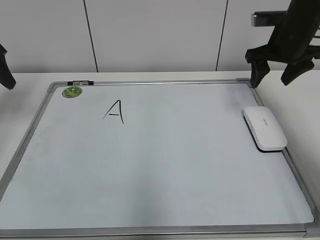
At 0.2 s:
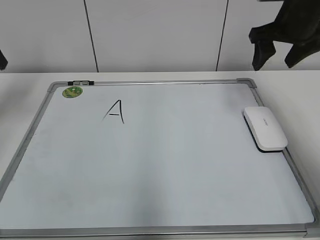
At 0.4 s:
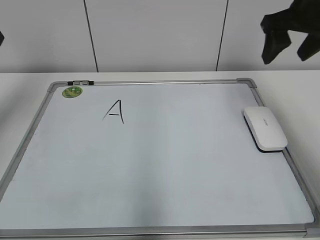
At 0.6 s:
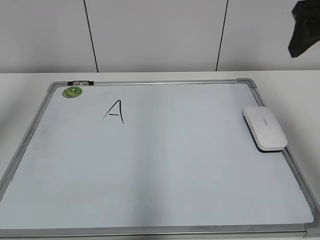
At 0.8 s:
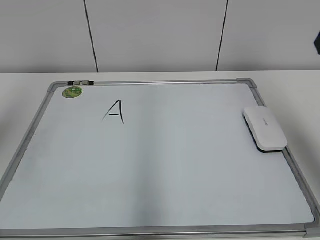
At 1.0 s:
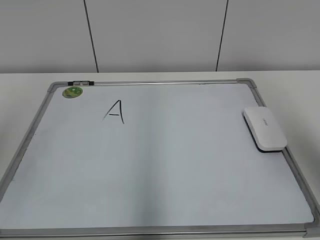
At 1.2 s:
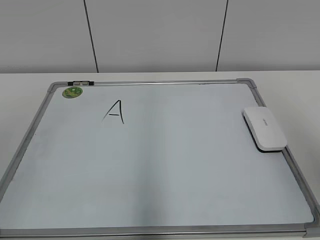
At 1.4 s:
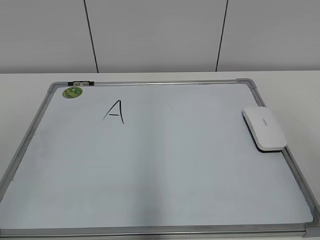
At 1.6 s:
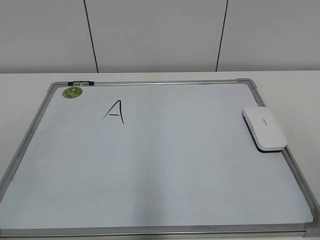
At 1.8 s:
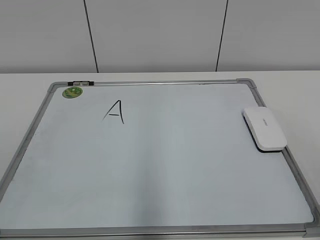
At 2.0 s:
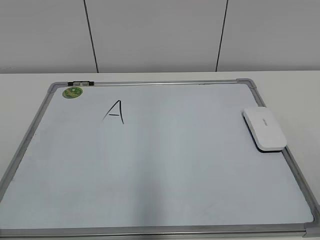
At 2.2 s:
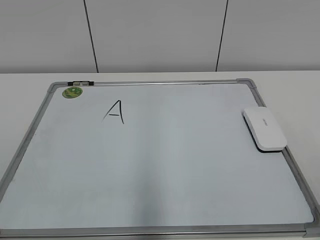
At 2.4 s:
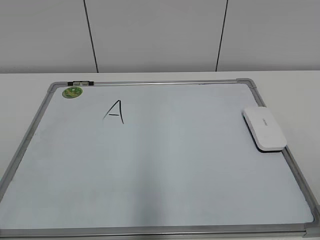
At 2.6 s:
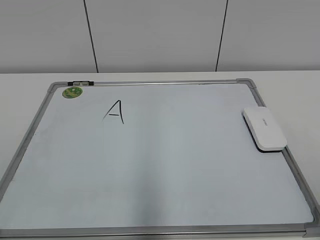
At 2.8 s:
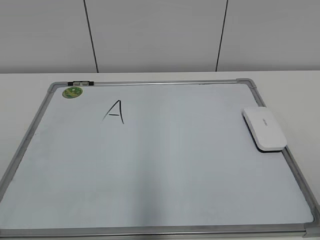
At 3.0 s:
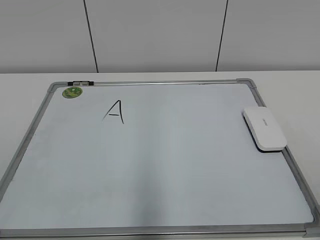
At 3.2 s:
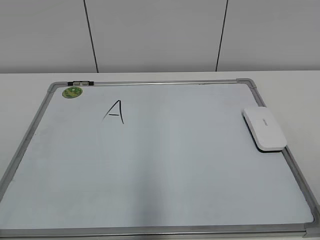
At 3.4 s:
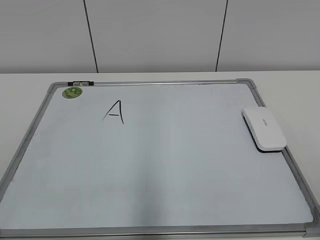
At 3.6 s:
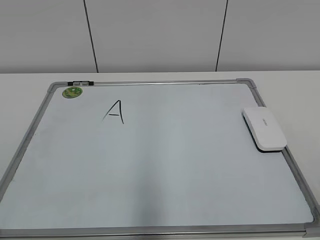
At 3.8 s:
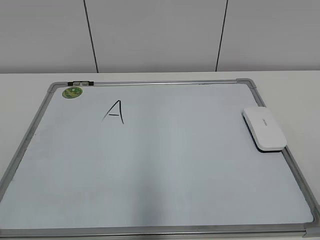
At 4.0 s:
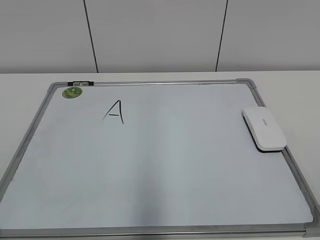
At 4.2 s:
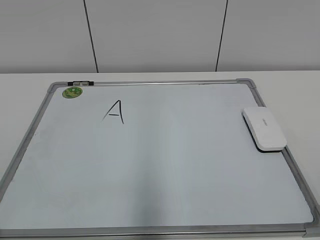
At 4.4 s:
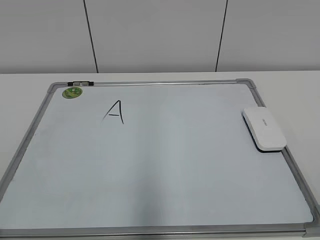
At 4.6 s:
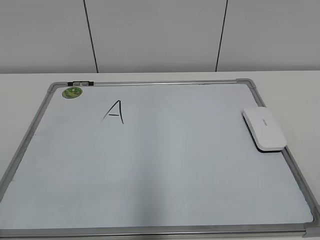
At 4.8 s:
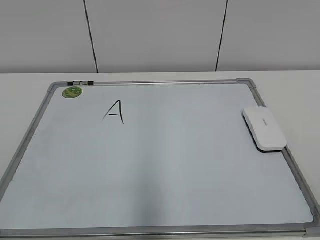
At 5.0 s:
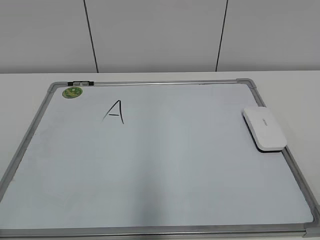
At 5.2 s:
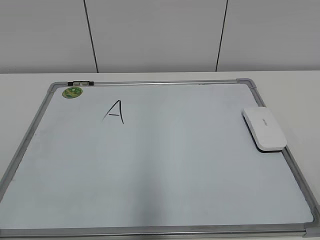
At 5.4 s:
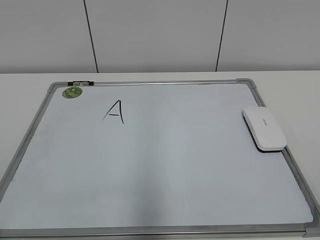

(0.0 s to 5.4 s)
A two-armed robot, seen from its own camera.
Task of the whole recording: pick up the eraser on the blackboard and erase the letter "a".
0.0 s - 1.4 s: The two grippers go roughly 35 cm backward.
4.0 s - 5.4 s: Both grippers stay put.

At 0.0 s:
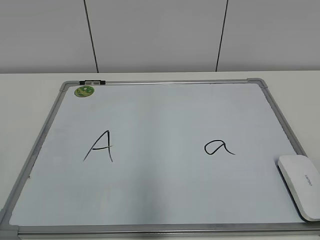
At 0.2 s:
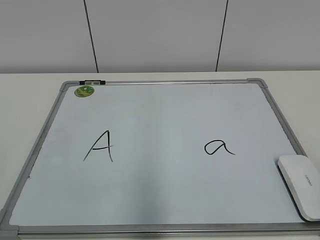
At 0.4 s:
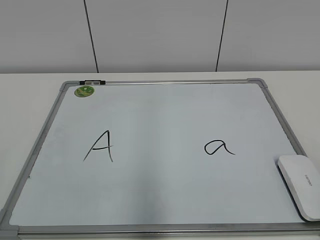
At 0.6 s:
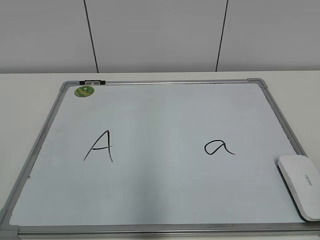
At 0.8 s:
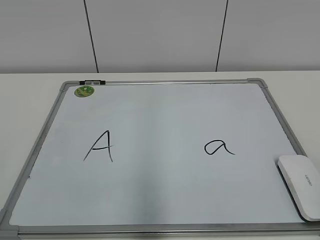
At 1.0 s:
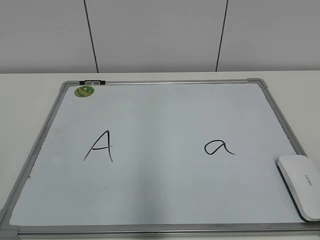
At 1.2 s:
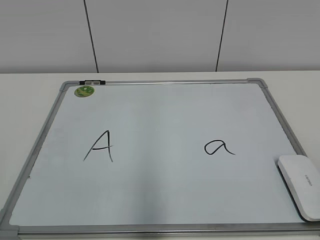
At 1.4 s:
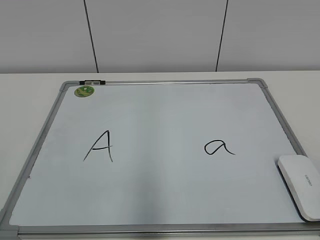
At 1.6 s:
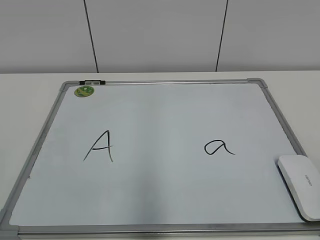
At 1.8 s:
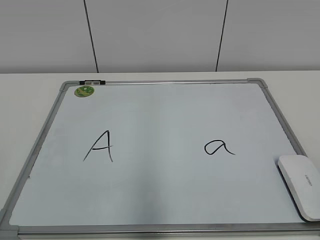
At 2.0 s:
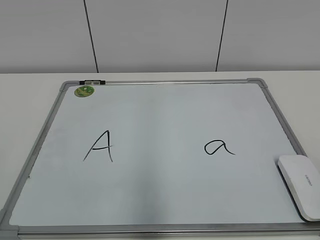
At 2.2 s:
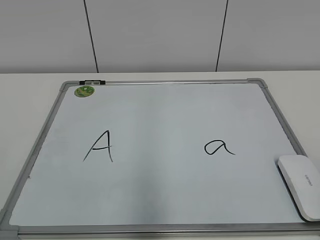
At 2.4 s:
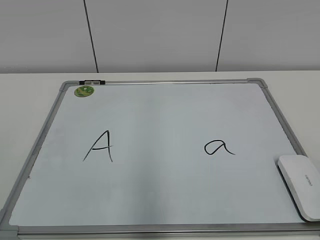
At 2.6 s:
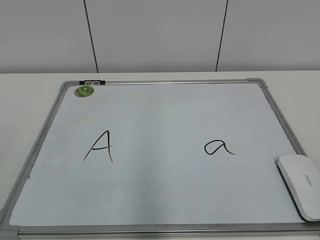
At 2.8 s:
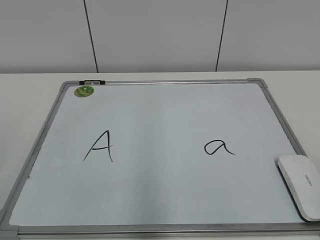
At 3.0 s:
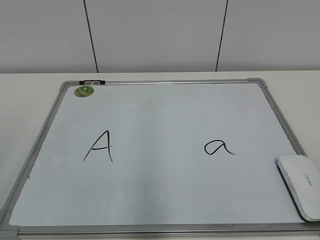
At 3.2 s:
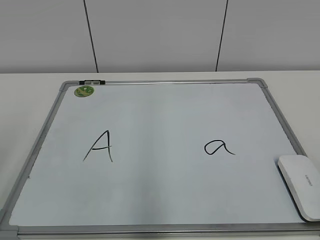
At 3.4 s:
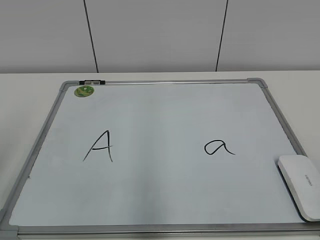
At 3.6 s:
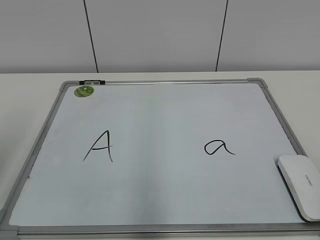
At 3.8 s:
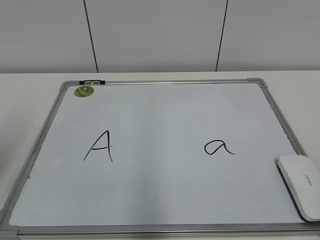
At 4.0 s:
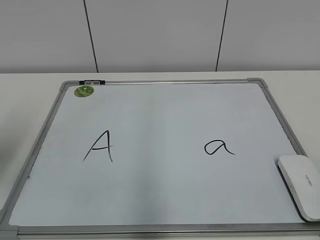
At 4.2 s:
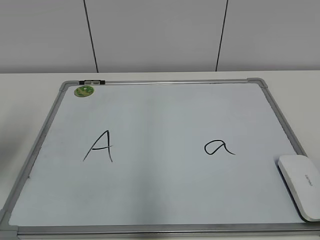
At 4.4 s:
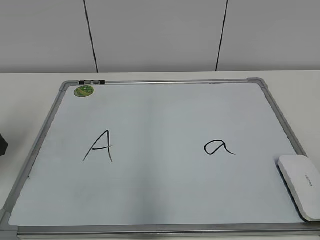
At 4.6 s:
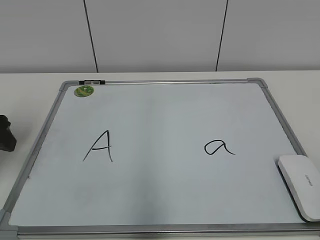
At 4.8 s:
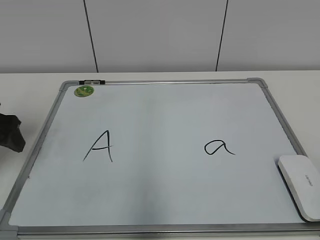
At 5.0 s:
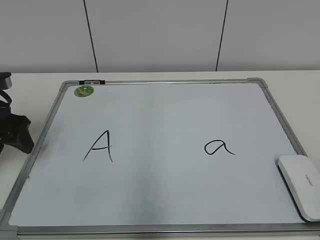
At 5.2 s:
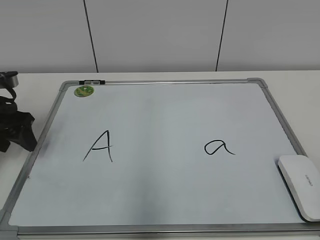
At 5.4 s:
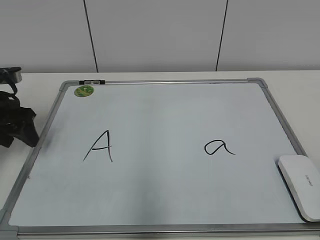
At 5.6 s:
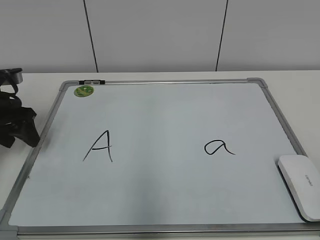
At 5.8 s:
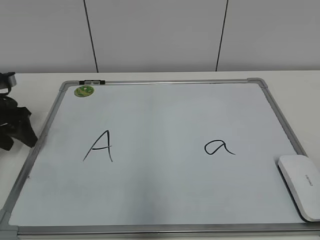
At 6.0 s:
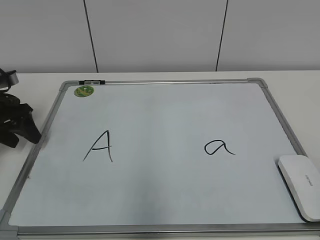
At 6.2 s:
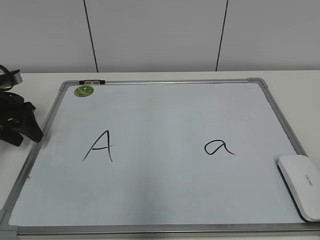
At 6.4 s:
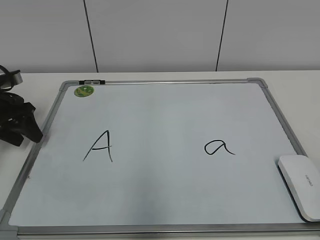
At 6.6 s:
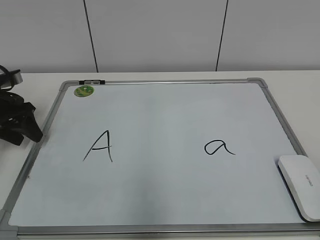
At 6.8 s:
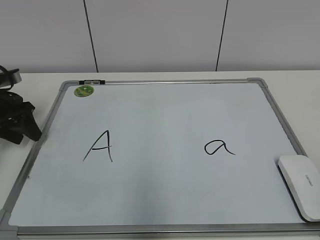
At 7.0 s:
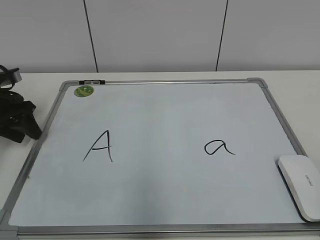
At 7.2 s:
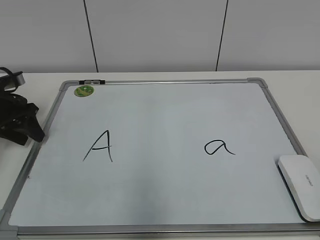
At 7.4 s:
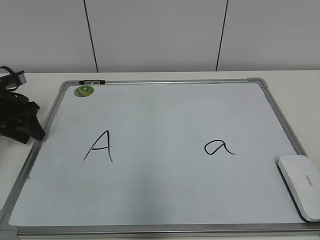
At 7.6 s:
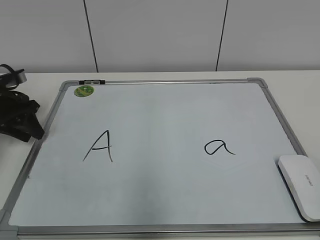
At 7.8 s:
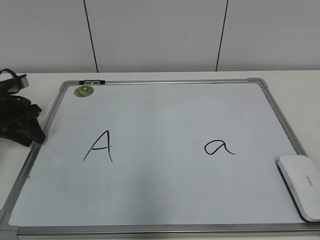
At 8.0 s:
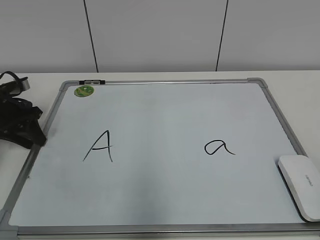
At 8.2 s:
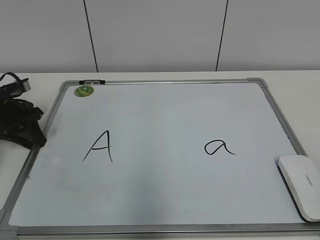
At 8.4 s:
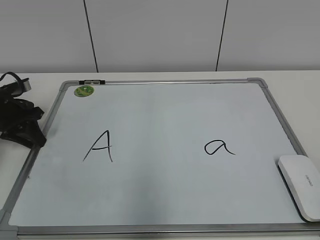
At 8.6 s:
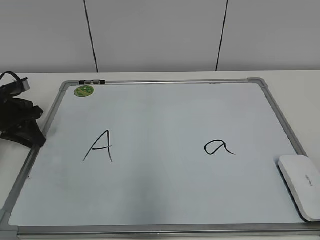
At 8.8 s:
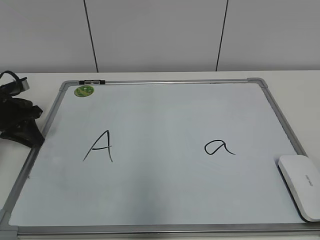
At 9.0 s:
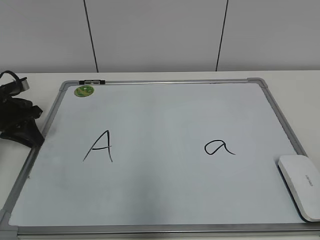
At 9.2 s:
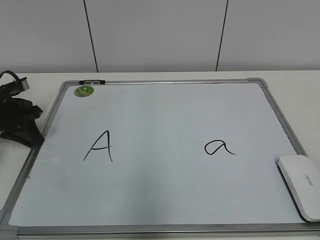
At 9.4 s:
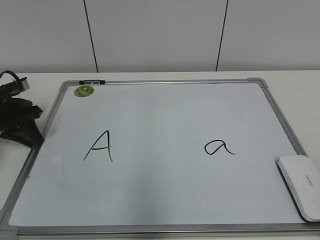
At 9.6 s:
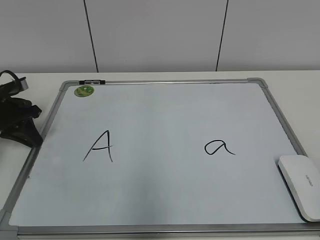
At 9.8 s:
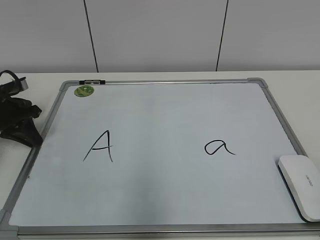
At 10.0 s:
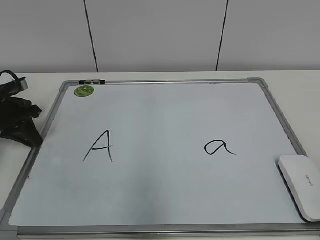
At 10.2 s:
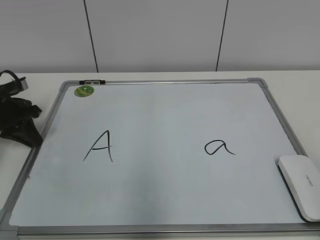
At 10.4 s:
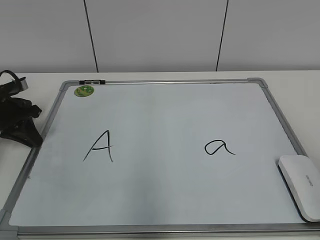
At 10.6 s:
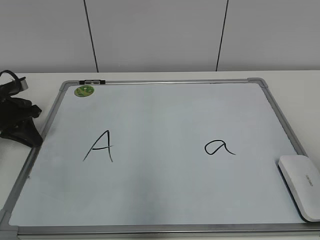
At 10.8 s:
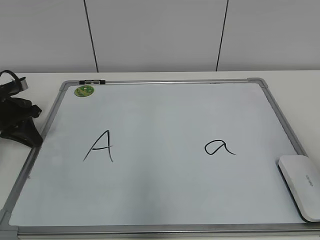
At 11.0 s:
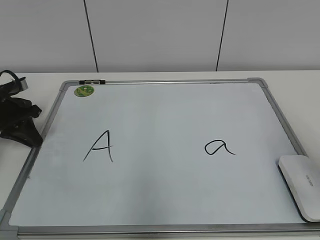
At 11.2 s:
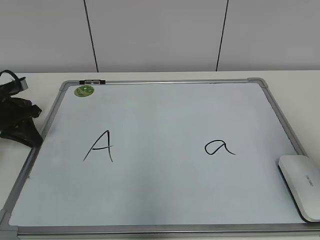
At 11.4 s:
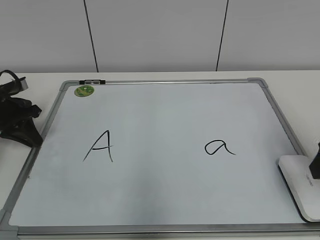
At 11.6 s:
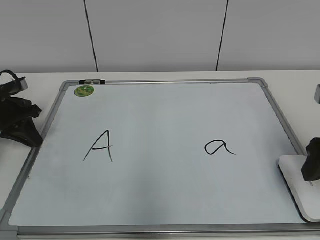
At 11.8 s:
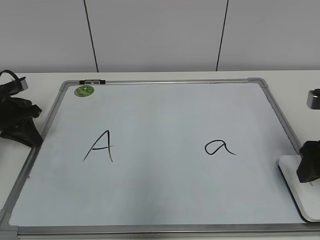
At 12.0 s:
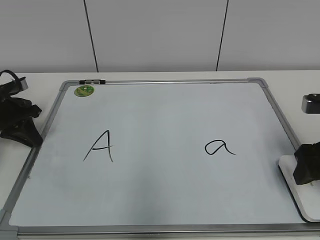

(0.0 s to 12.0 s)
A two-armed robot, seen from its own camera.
Task of the whole recording: pick up the eraser on the blackboard and erase the letter "a".
Step, 0.0 s - 8.4 s: Hold the drawing board steady with your left hand.
3.0 s - 4.4 s: The left gripper moves forward and downward, some 20 cm.
4.4 s - 6.0 s: The left gripper heads forward and downward, covering approximately 15 cm.
6.0 s - 7.6 s: The left gripper closes.
7.6 s - 9.0 s: The grippers stay close to where they were, moving slightly.
10.4 s - 12.0 s: The right gripper moves forward and downward, approximately 20 cm.

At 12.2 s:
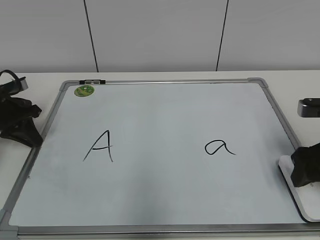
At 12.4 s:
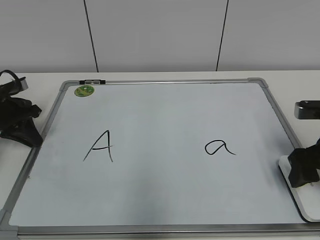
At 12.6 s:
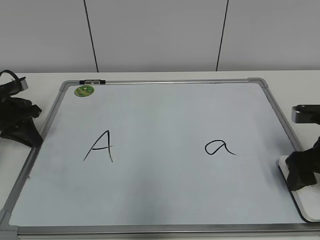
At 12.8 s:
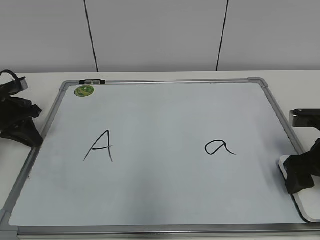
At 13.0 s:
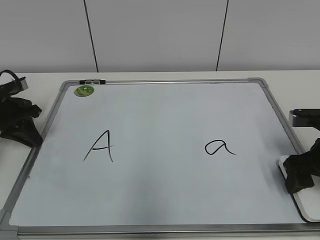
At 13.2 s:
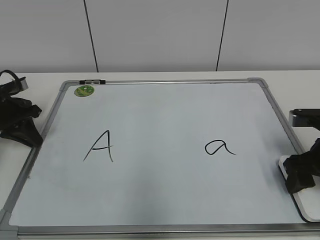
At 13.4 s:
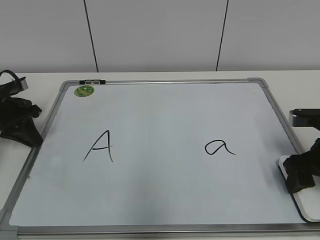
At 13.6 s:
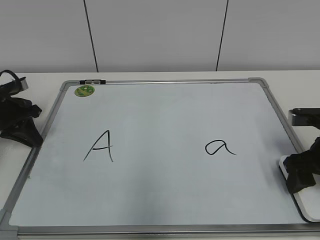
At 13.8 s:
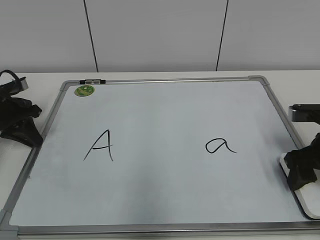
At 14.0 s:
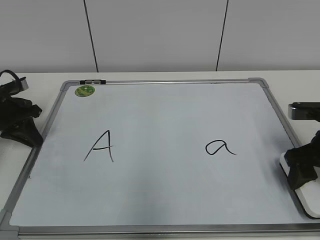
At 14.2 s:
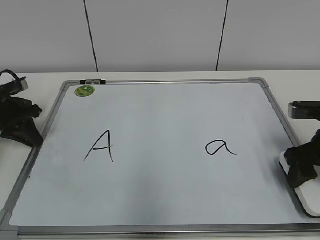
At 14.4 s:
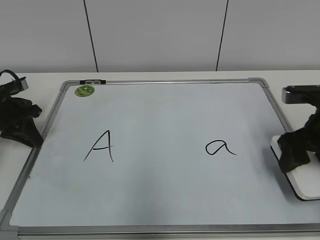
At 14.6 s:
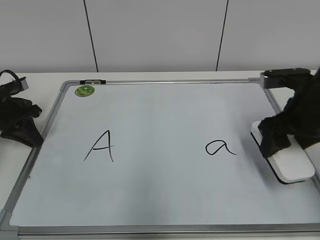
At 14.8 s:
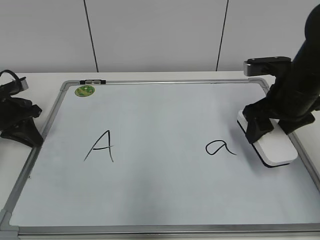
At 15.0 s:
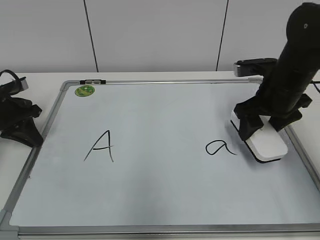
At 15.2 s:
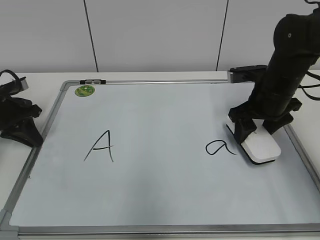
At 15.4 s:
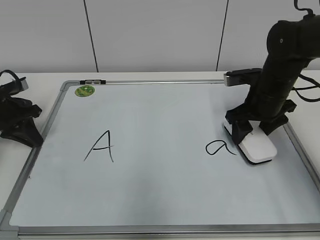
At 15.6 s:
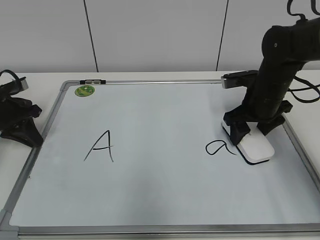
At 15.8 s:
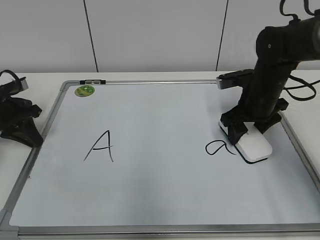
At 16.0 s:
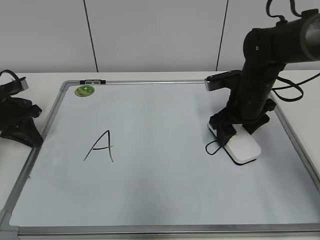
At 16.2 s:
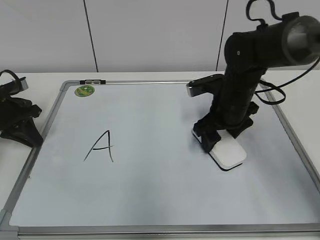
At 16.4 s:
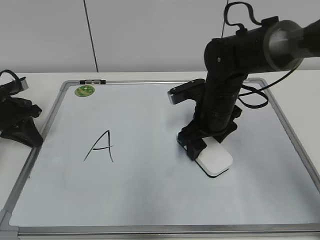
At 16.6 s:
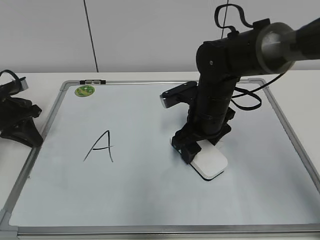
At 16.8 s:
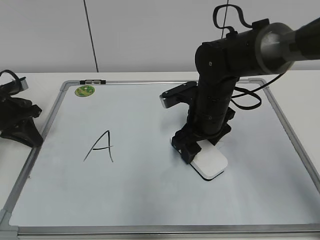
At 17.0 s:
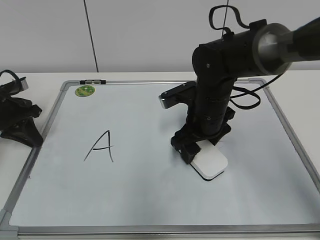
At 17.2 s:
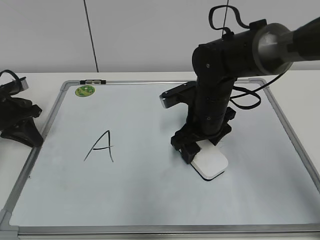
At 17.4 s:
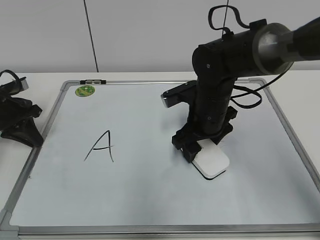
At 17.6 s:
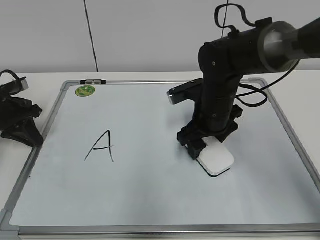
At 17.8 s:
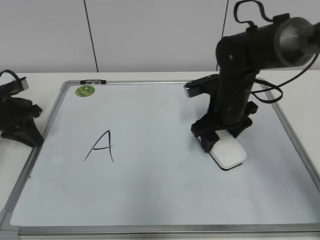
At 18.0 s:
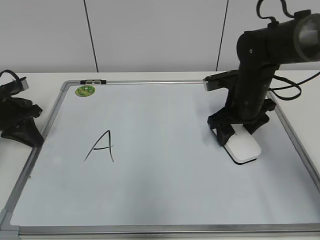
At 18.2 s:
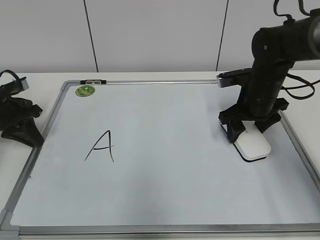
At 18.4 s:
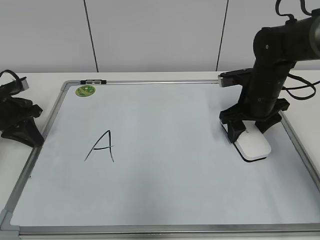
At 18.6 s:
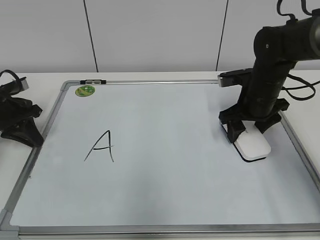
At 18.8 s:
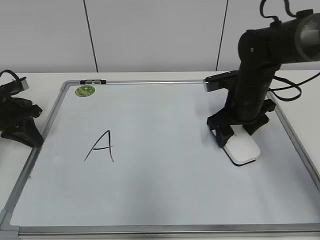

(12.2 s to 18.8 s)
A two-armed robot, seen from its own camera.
Task of the whole recording: pick up the eraser on the blackboard and erase the letter "a".
12.2 s - 13.8 s: There are only small adjustments of the grippers.
13.8 s - 15.4 s: The right gripper heads forward and to the left, covering approximately 15 cm.
15.4 s - 17.2 s: The right gripper travels to the left by about 10 cm.
17.2 s - 18.8 s: The right gripper travels to the right by roughly 5 cm.
